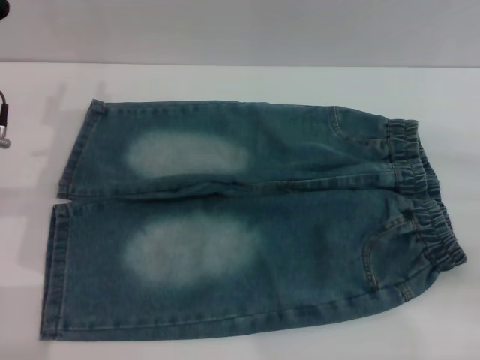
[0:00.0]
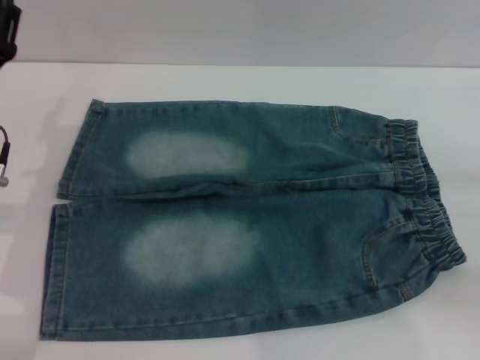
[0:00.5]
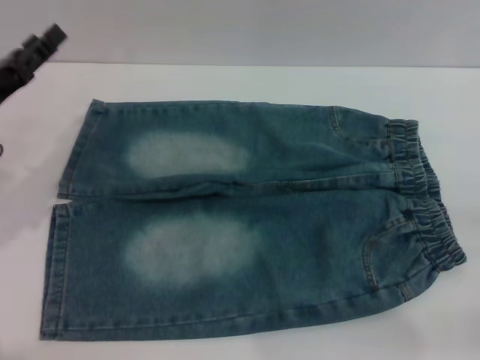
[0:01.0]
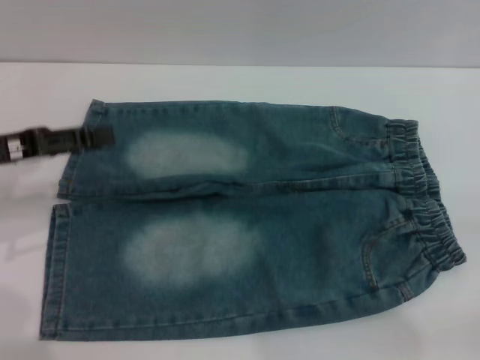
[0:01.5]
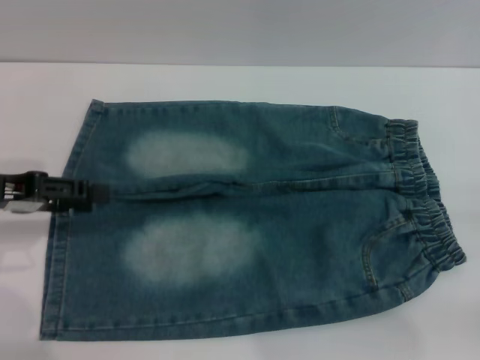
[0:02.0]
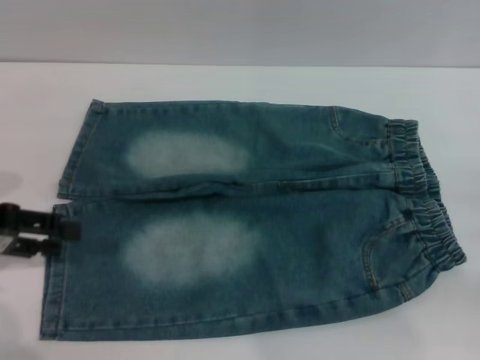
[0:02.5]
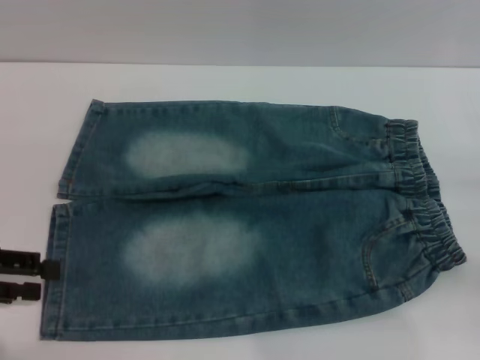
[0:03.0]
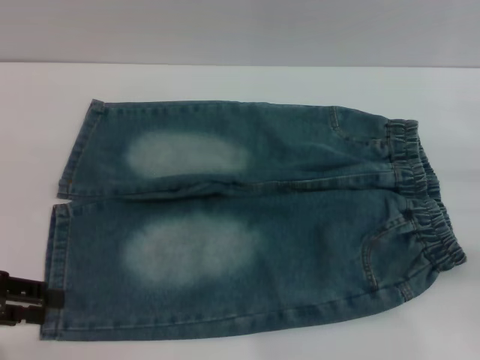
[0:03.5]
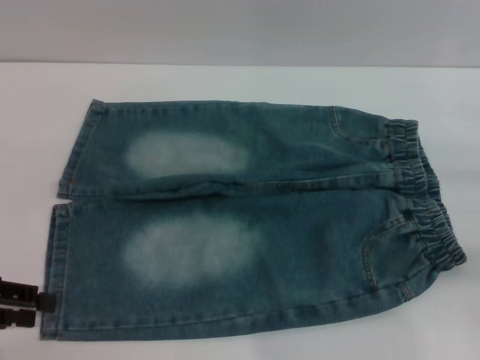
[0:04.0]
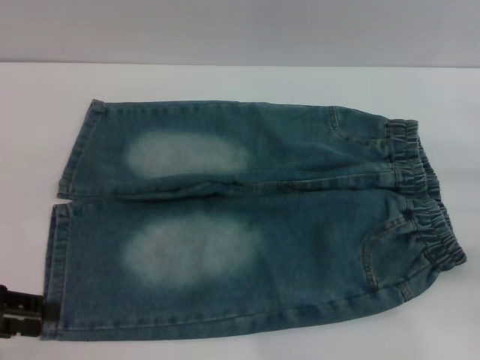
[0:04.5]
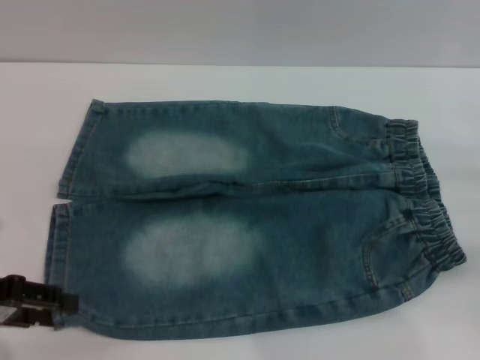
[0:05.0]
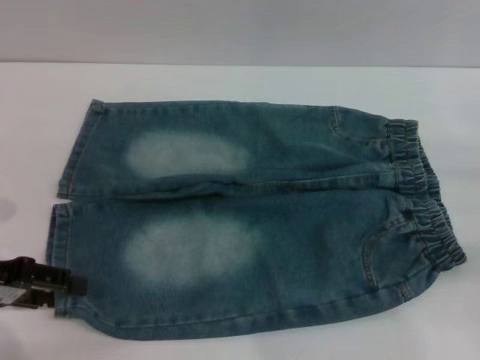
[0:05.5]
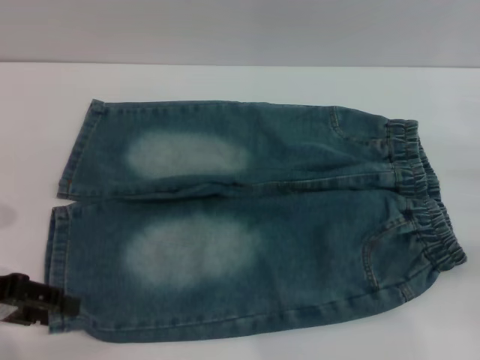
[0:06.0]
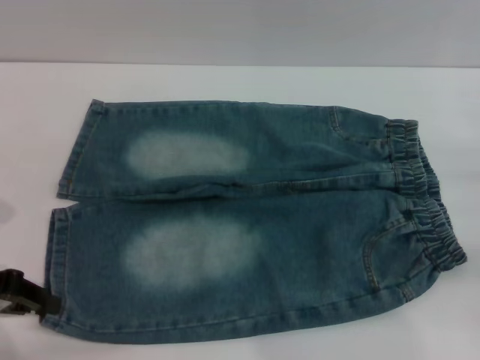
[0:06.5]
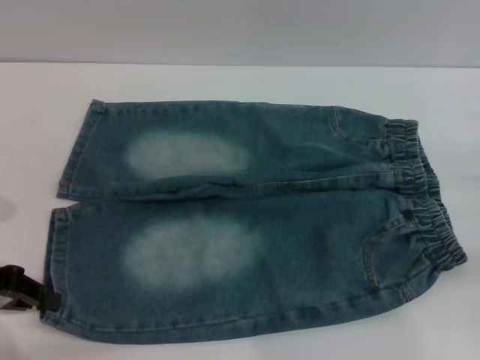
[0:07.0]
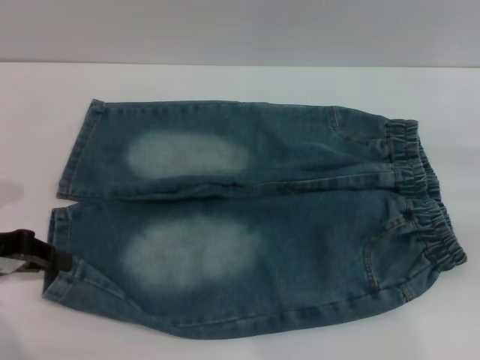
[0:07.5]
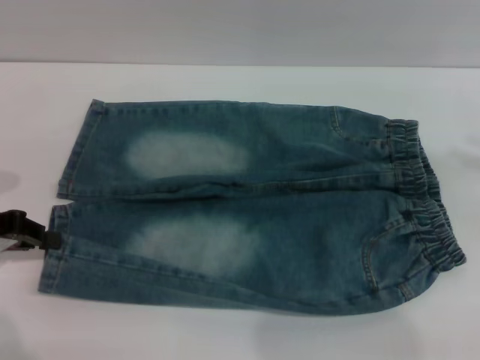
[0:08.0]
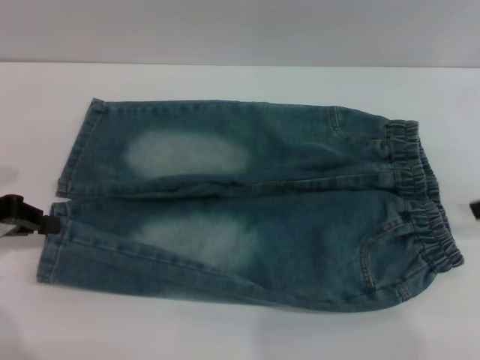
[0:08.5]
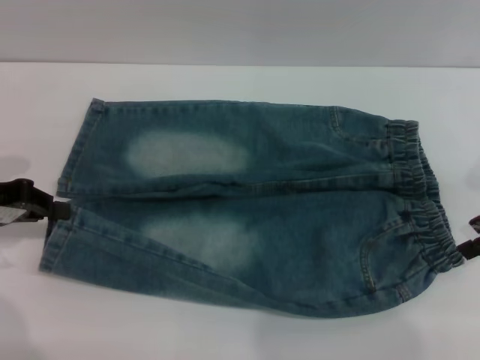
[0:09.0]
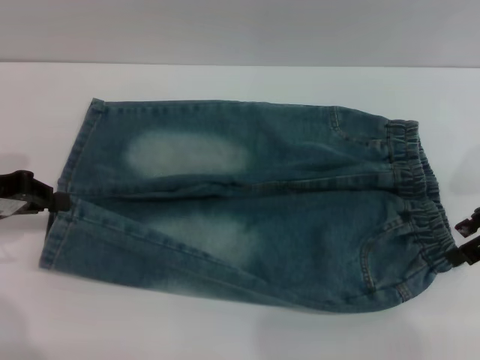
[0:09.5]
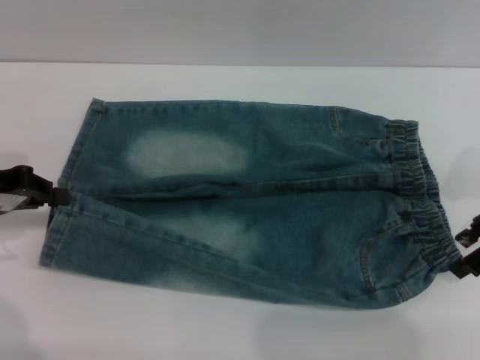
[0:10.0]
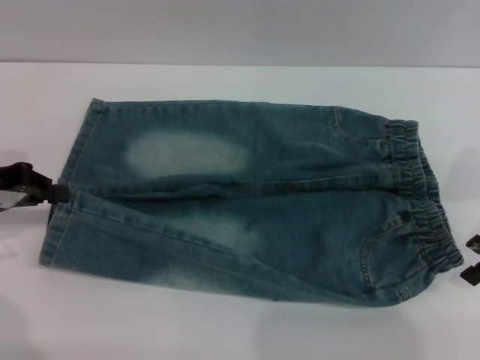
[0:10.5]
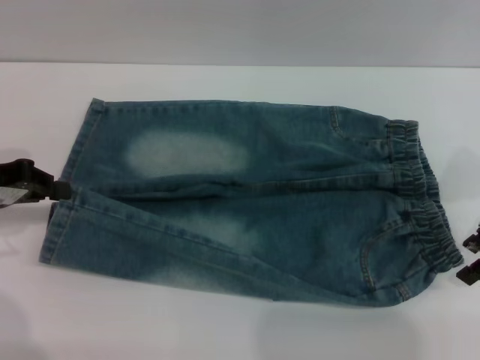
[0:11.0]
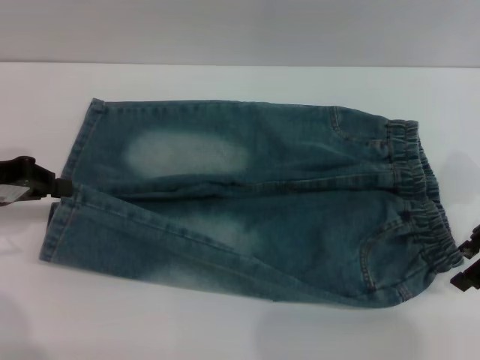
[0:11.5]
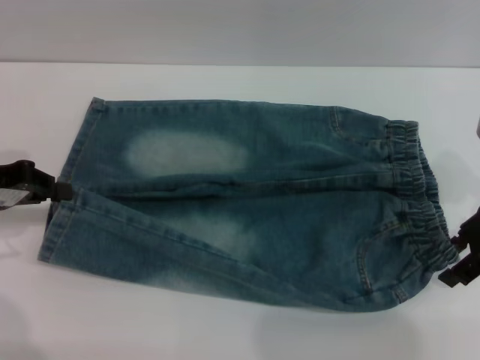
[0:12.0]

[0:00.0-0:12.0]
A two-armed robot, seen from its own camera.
0:00.0 to 0:02.0: The left gripper shifts about 10 cm to the left.
0:02.0 to 0:04.0: The left gripper is displaced backward by about 5 cm.
0:04.0 to 0:06.0: The grippers stay close to where they were, moving slightly.
0:06.0 to 0:08.0: The right gripper is displaced upward by about 15 cm, while the left gripper closes up.
0:08.0 to 0:10.0: The right gripper goes some 10 cm to the left.
0:10.0 to 0:12.0: The grippers move only a little.

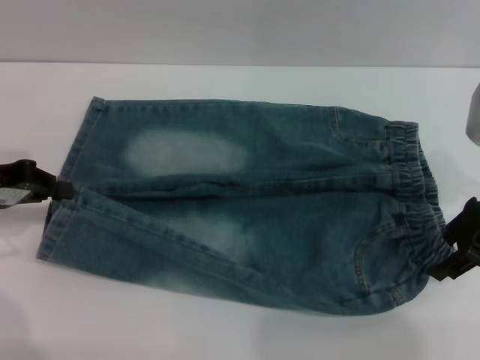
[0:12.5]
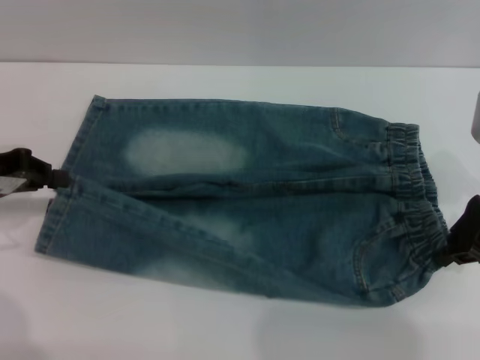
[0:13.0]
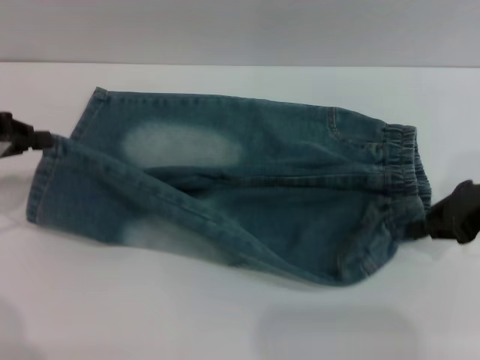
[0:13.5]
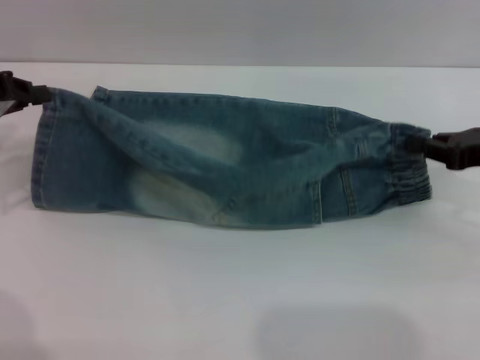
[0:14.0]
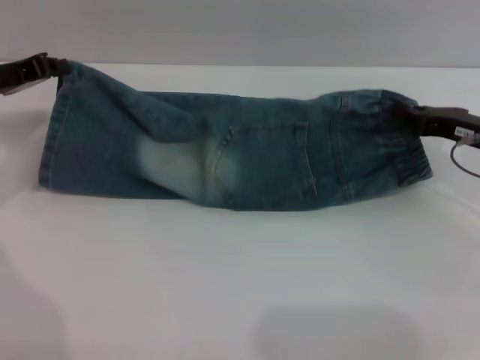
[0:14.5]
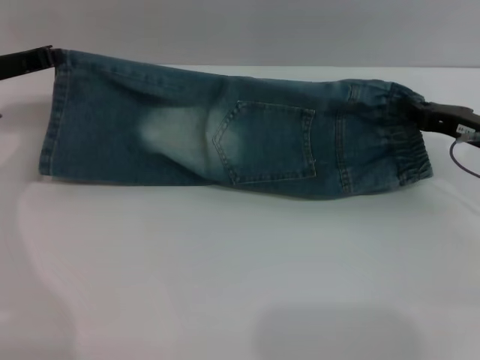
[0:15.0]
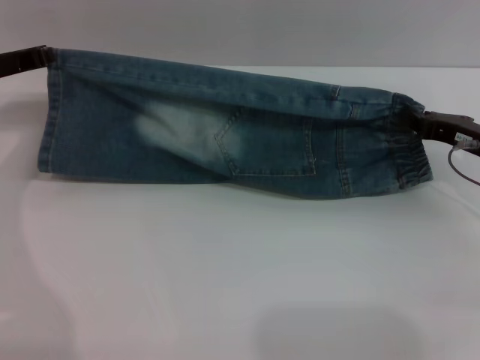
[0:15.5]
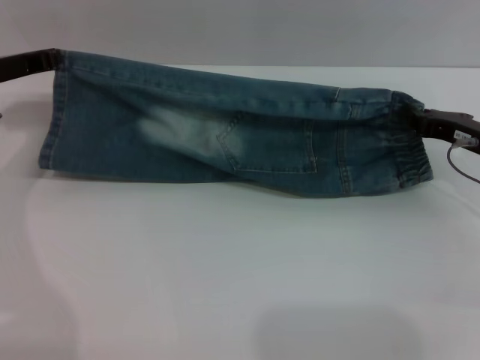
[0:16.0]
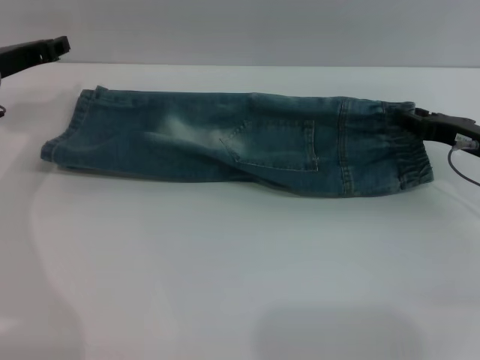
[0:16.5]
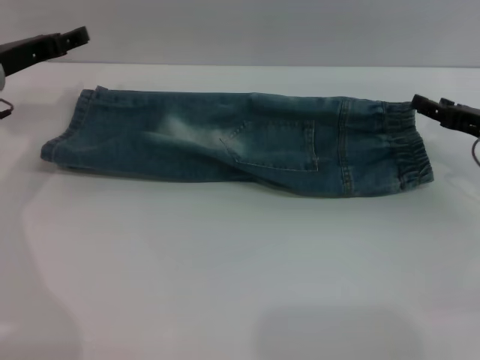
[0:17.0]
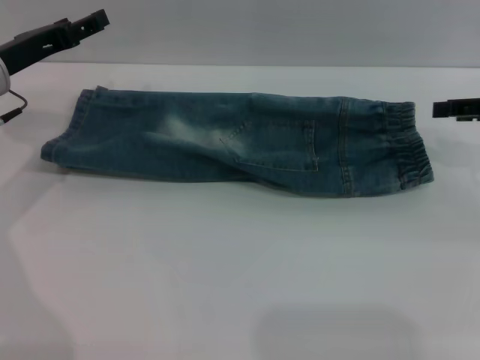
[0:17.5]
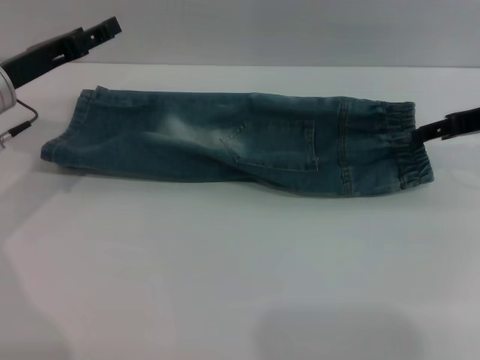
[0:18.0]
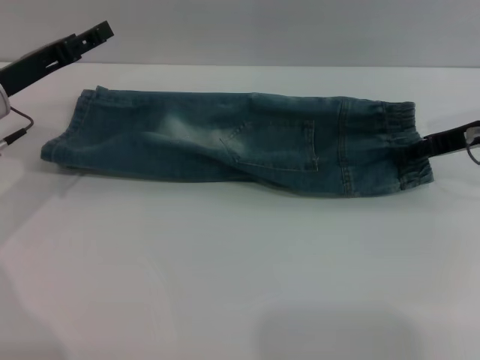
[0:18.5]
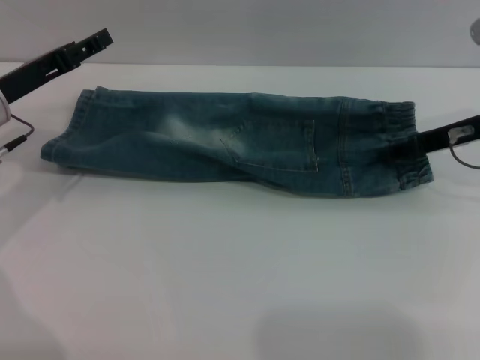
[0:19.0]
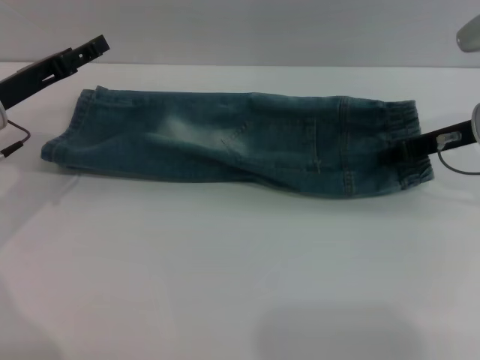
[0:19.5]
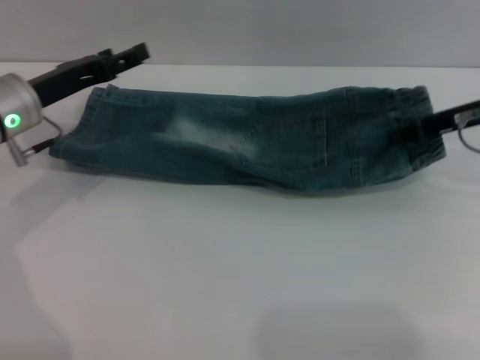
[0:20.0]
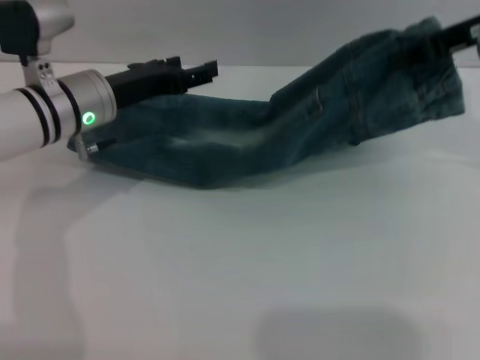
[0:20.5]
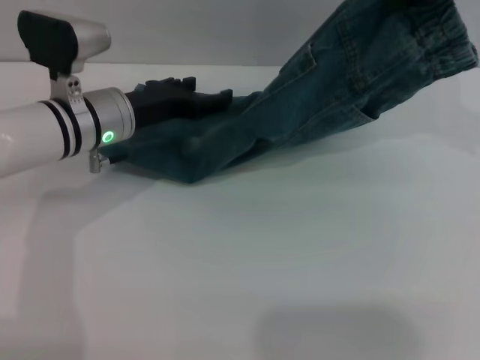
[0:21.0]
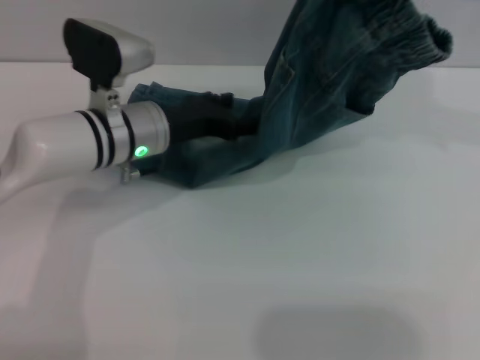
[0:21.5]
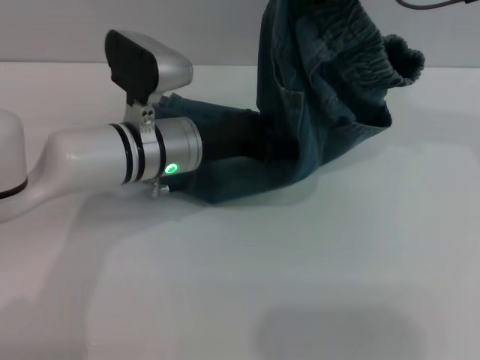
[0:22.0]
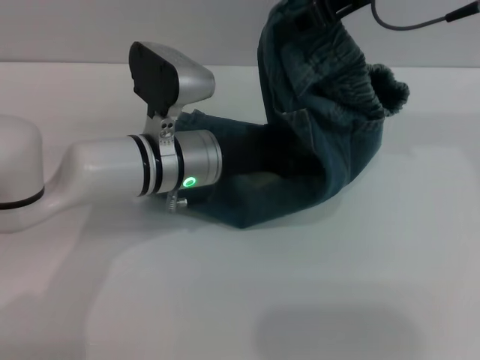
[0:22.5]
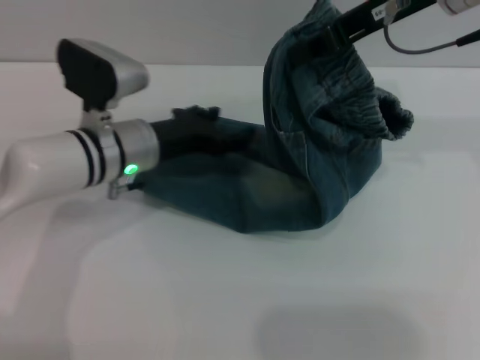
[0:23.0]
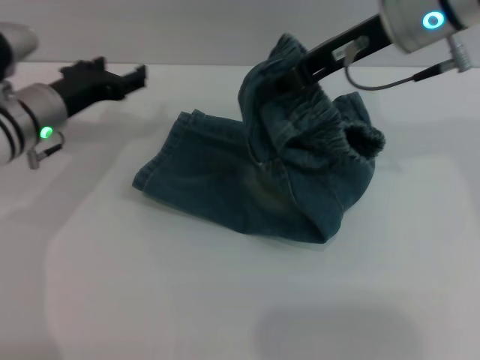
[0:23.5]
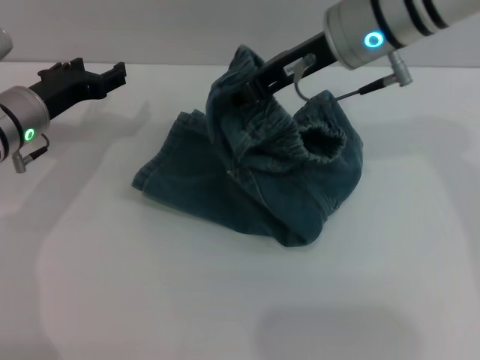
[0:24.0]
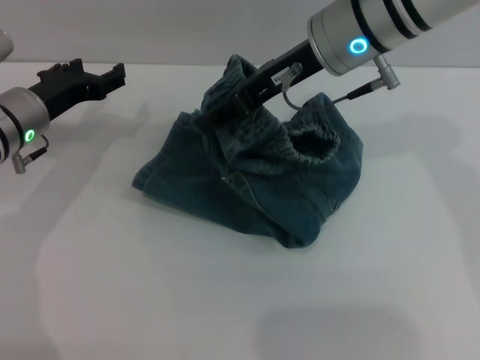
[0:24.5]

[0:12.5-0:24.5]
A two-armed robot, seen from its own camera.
Step, 0:12.5 to 0:16.5: Fold the bottom of the pants upward with both grippers.
0:12.5 to 0:14.5: The left gripper travels forward by about 5 cm. Meanwhile the right gripper heads downward, covering about 5 cm, and closes up.
0:14.5 to 0:16.5: The right gripper opens its fingers.
0:16.5 to 0:18.5: The left gripper opens up. Meanwhile the right gripper travels upward by about 10 cm, and opens.
0:18.5 to 0:20.5: The right gripper moves upward, some 15 cm, and closes; the left gripper is displaced to the right by some 10 cm.
0:20.5 to 0:22.5: The left gripper goes about 10 cm to the right. The right gripper goes approximately 10 cm to the left.
0:22.5 to 0:24.5: The right gripper goes some 10 cm downward and to the left, and opens its fingers; the left gripper heads to the left, covering about 15 cm.

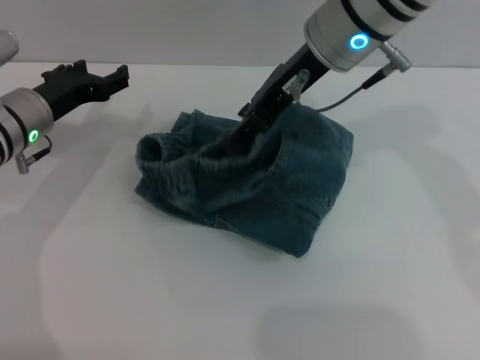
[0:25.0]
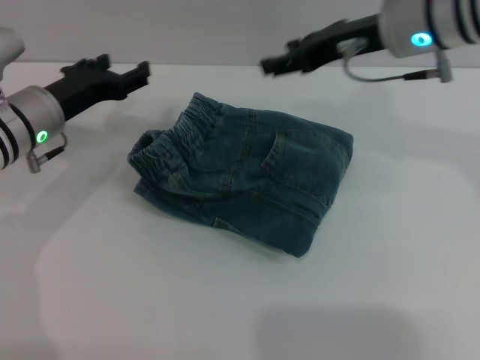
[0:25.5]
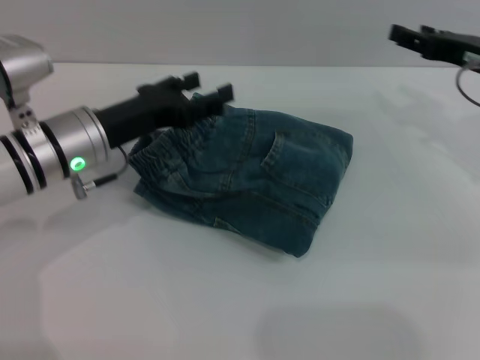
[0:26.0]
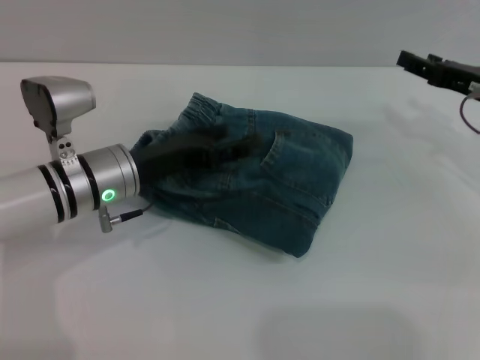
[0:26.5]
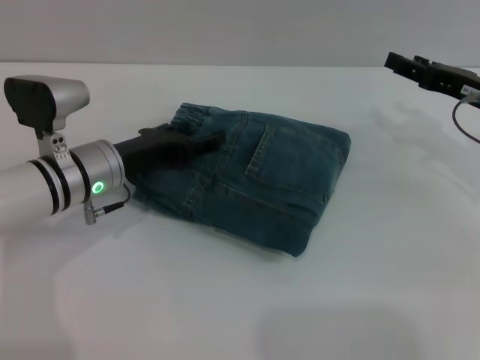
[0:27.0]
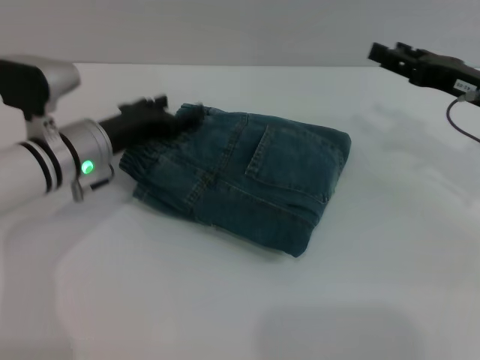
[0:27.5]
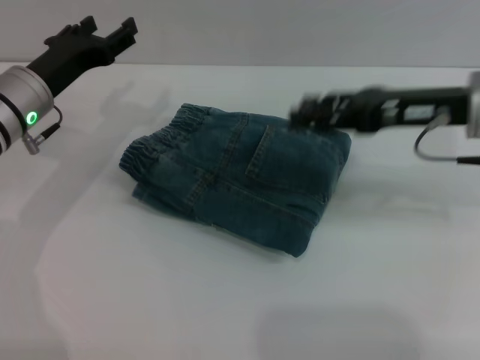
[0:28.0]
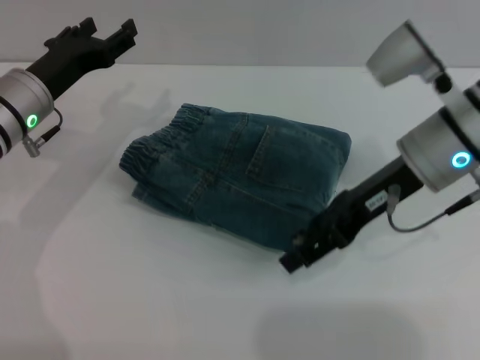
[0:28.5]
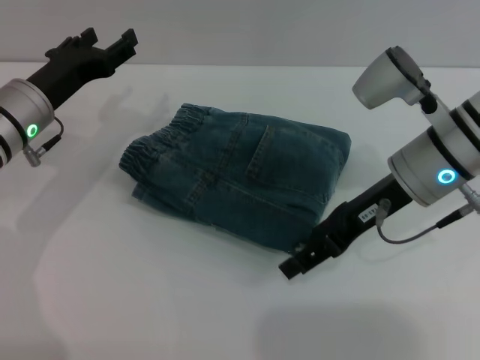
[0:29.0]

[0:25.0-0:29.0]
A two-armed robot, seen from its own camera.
0:25.0 to 0:27.0: The right gripper travels to the right and downward by about 25 cm. Meanwhile the left gripper moves to the right, about 5 cm.
0:27.0 to 0:29.0: The right gripper travels to the left by approximately 10 cm; the left gripper heads to the left, covering approximately 5 cm.
